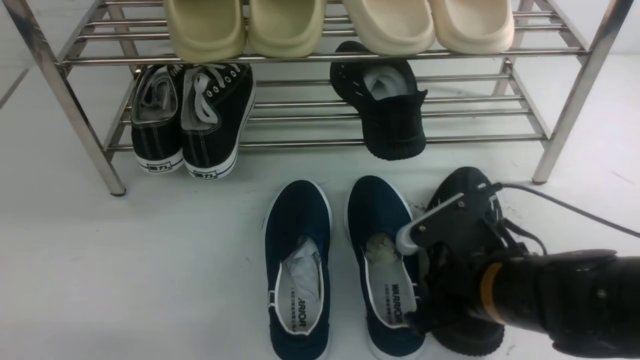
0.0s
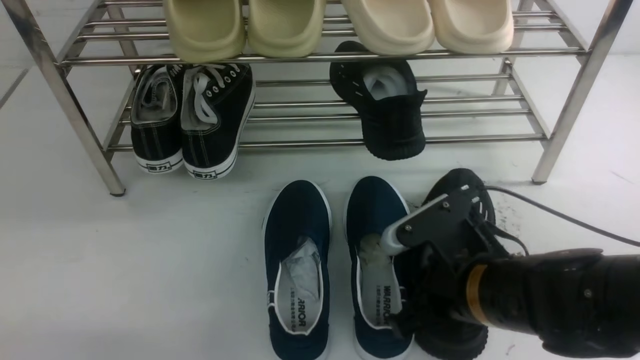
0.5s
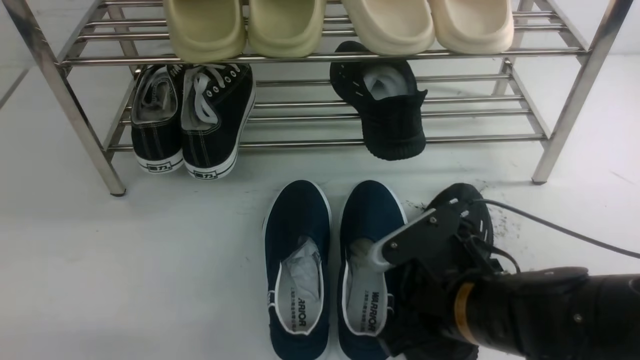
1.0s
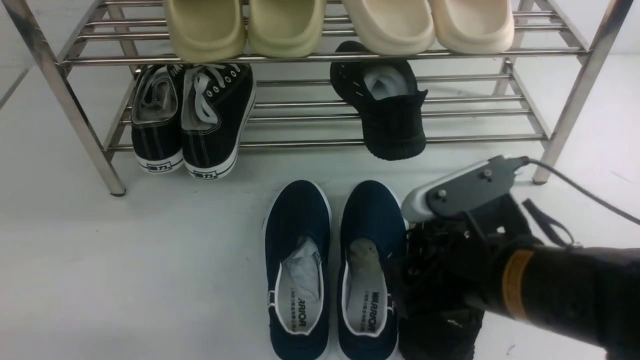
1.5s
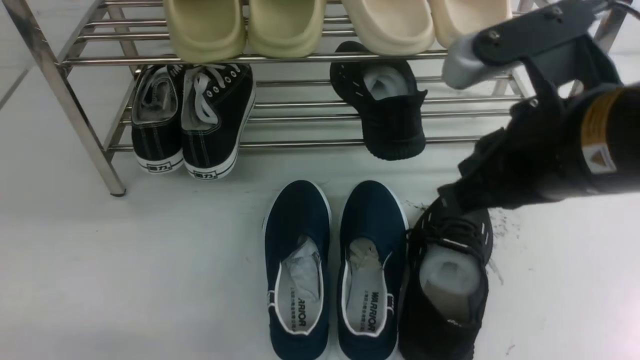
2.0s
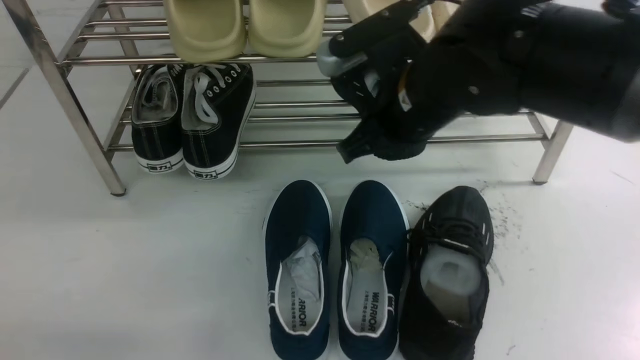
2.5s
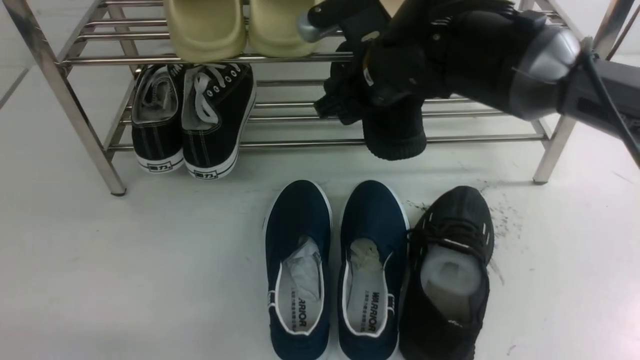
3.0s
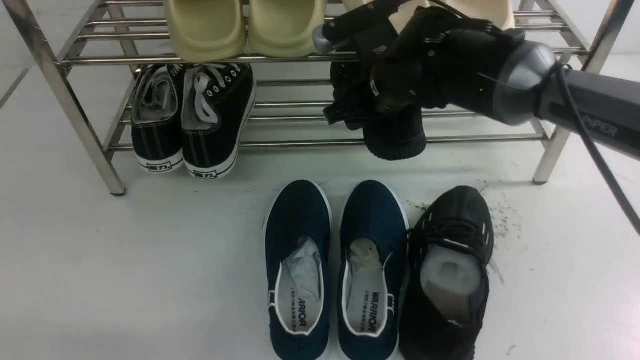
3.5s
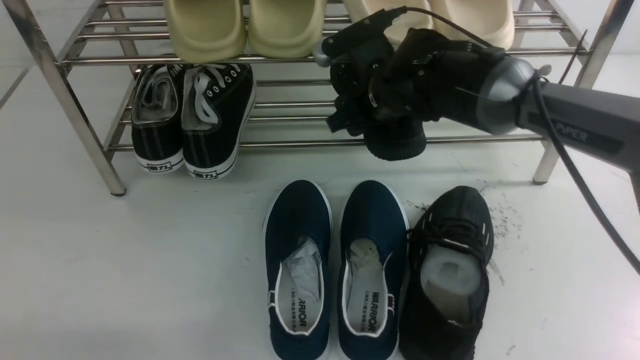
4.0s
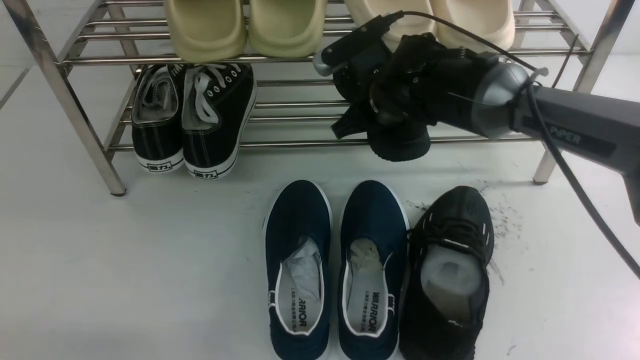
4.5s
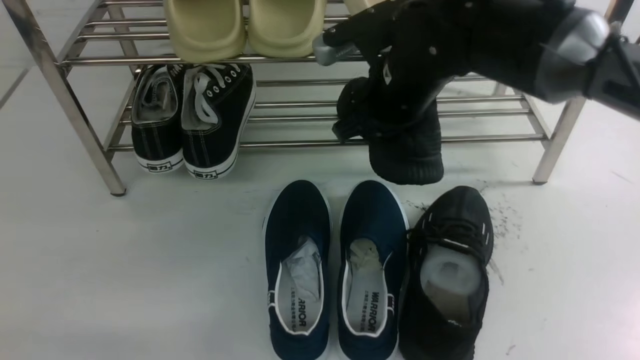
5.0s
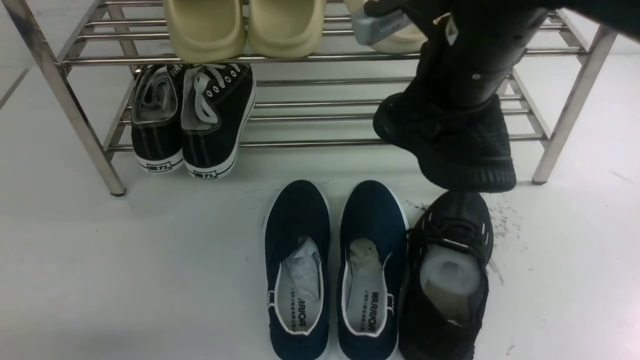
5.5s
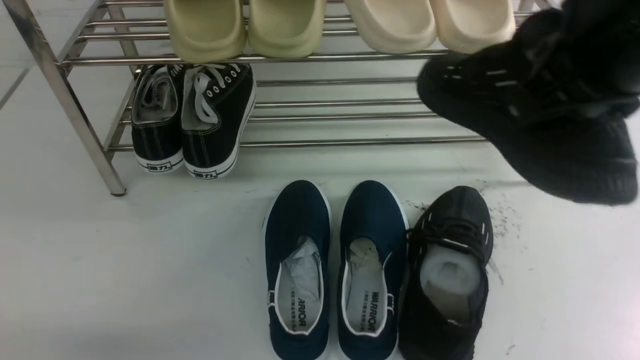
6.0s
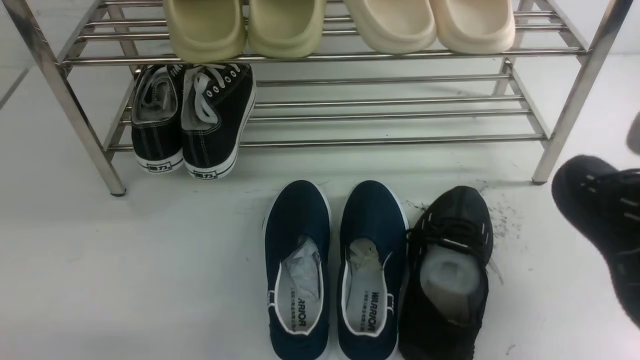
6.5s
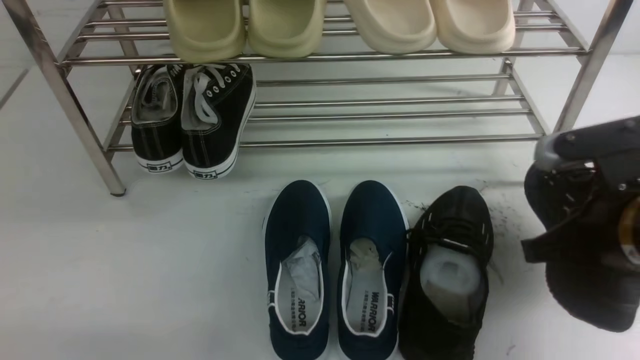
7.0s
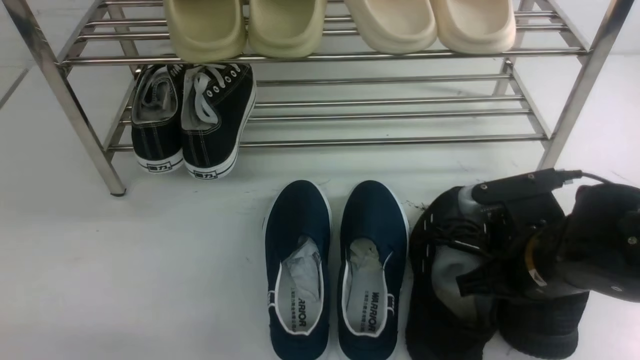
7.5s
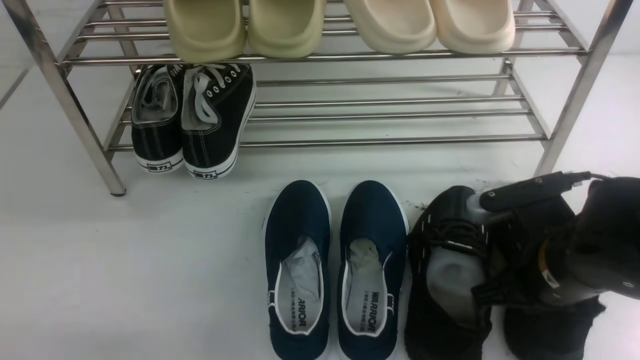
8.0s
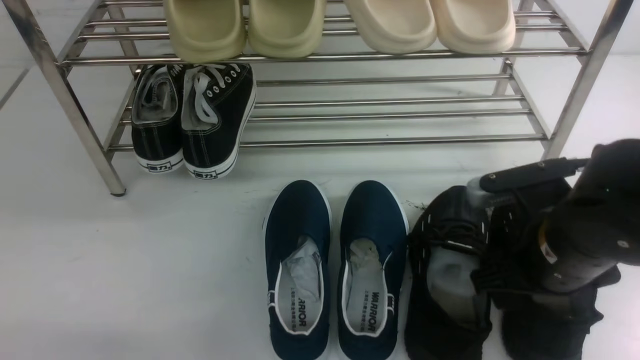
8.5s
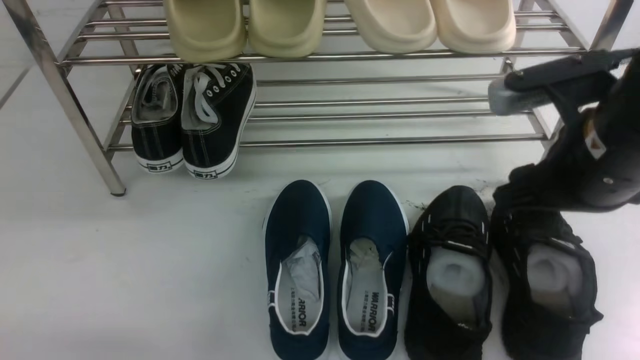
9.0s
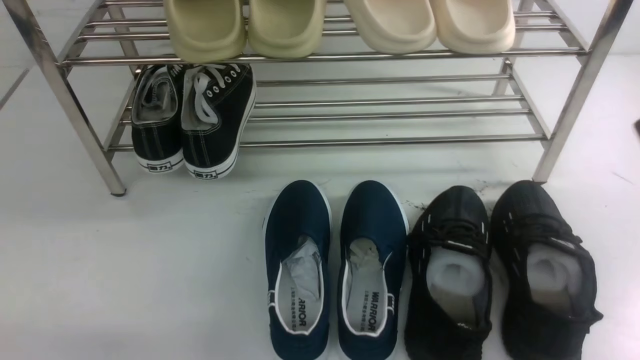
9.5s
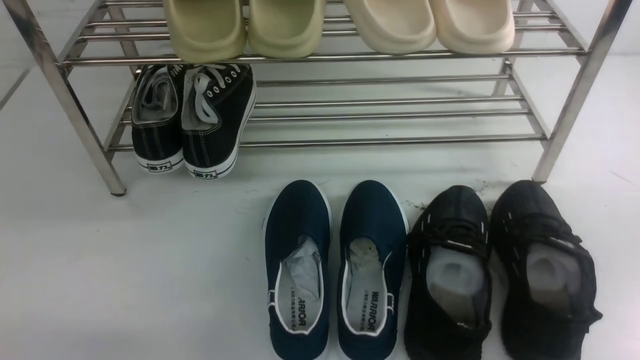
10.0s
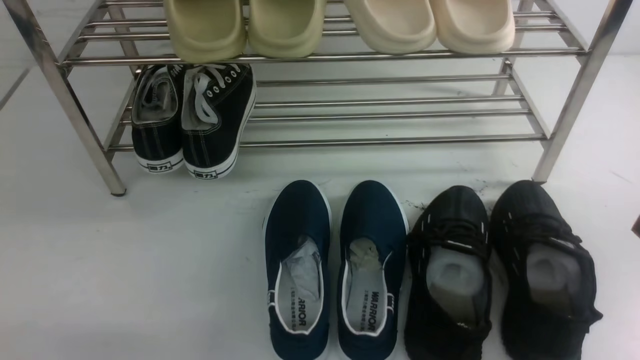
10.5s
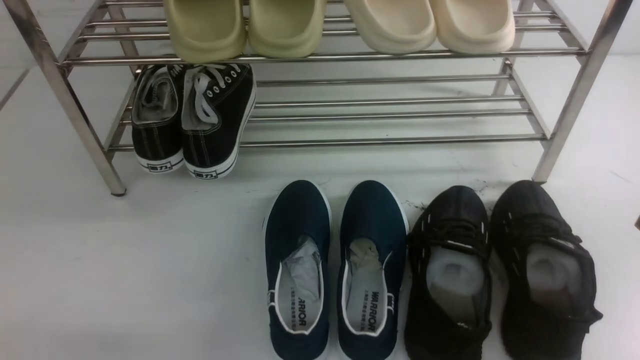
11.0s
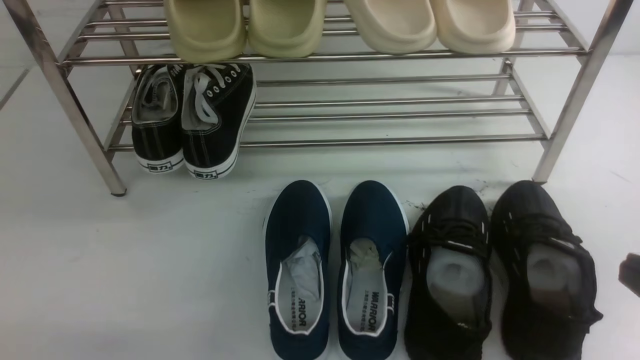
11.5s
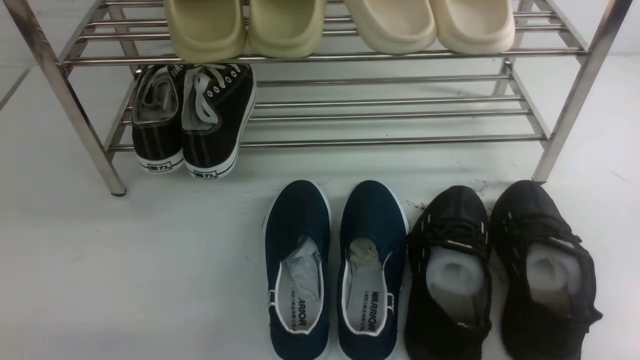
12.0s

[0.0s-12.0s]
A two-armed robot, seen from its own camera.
Step, 2.0s to 5.0s: use the right arm to clamp a shoe in the middle of the shoe rack.
Step, 5.5s to 8.5s: use the right arm to take out the clamped shoe from the shoe rack and put it down.
0.0s to 2.0s: The right gripper heads upward, covering roughly 20 cm, and opens, then closes once more.
2.0s to 4.0s: The right gripper heads forward and downward, covering about 25 cm, and opens.
4.0s to 6.0s: The right gripper goes about 30 cm backward, upward and to the right, and closes its fingers.
6.0s to 8.0s: The right gripper heads downward, covering approximately 25 cm.
8.0s to 10.0s: The right gripper heads upward, backward and to the right, covering roughly 25 cm, and closes its fingers.

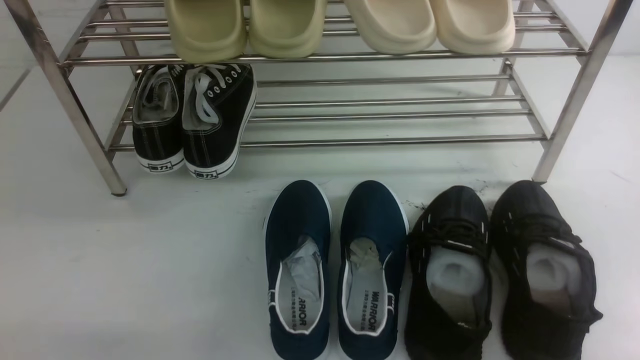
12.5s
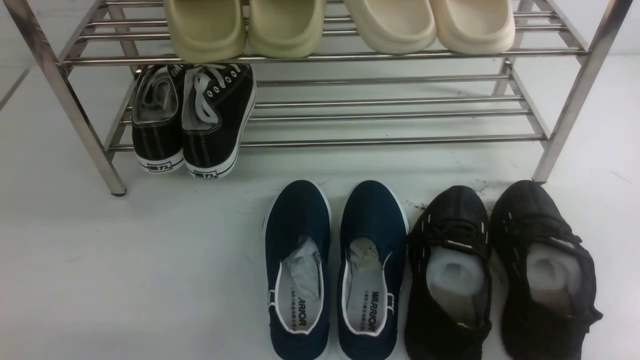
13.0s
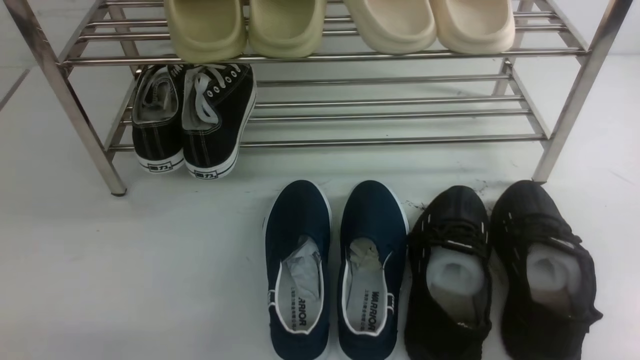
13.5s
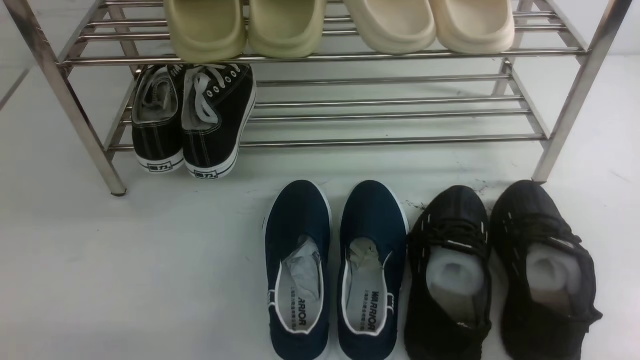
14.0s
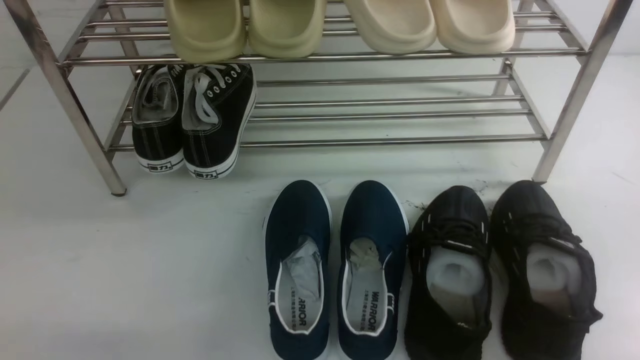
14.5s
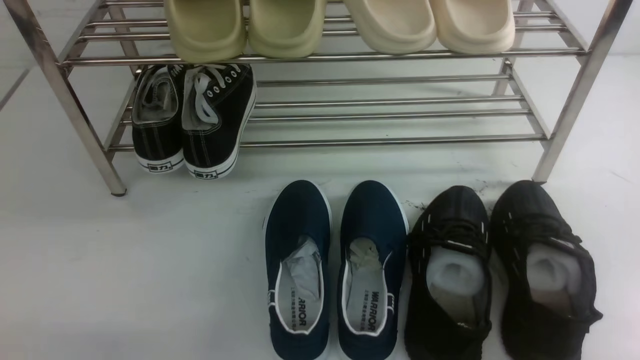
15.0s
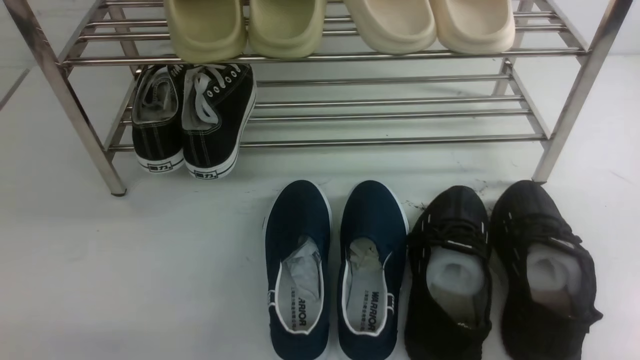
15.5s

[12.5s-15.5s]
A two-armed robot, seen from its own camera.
12.5s to 15.5s: Both grippers stay put.
